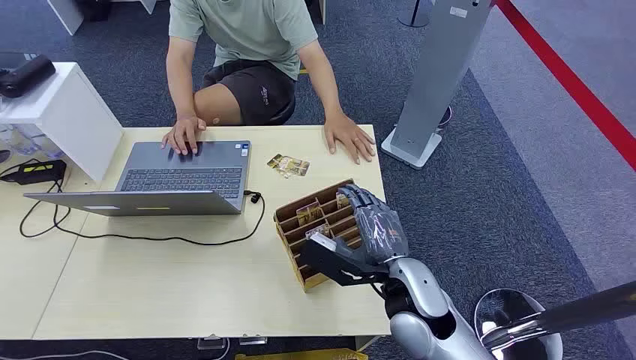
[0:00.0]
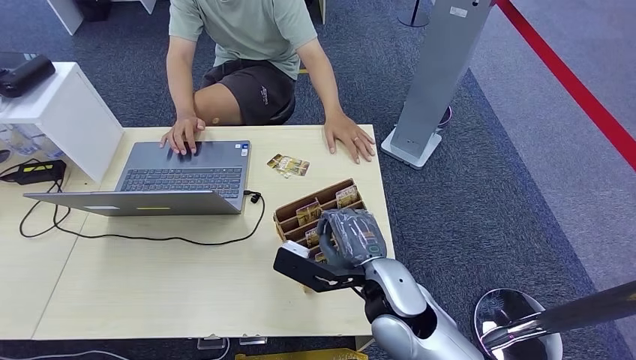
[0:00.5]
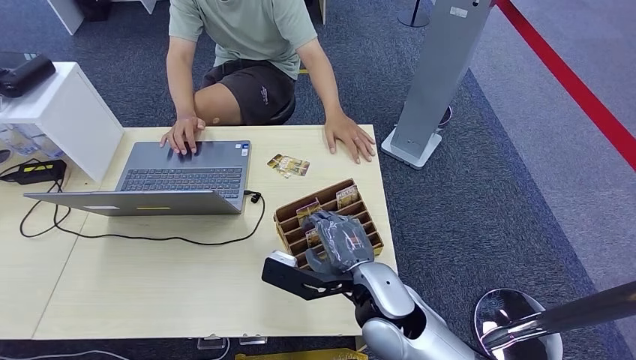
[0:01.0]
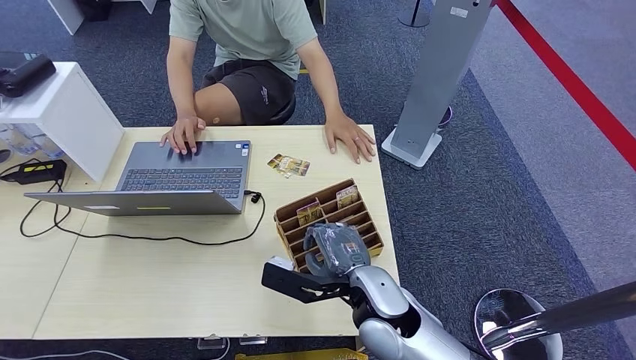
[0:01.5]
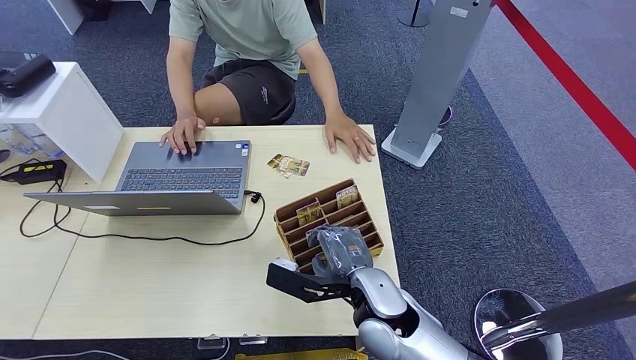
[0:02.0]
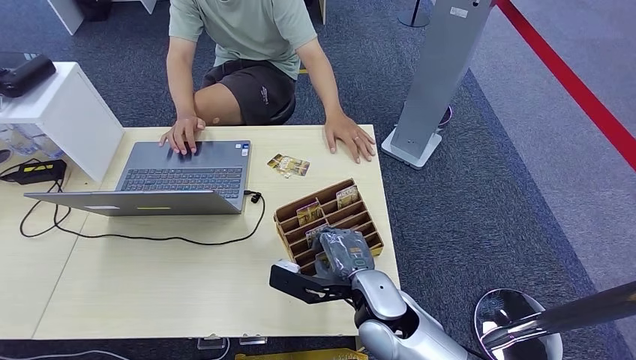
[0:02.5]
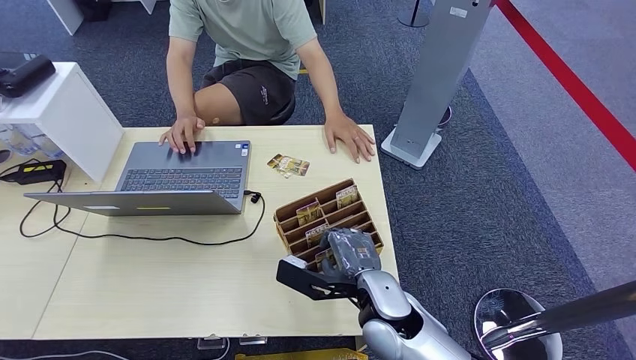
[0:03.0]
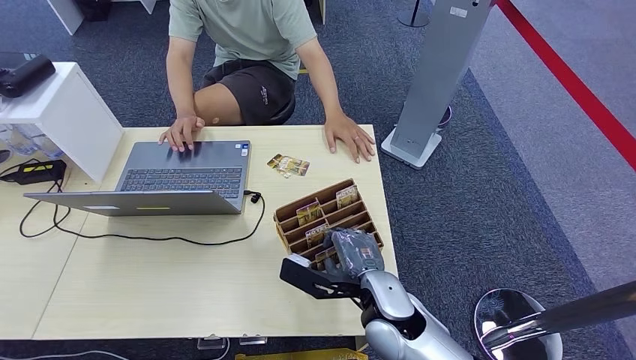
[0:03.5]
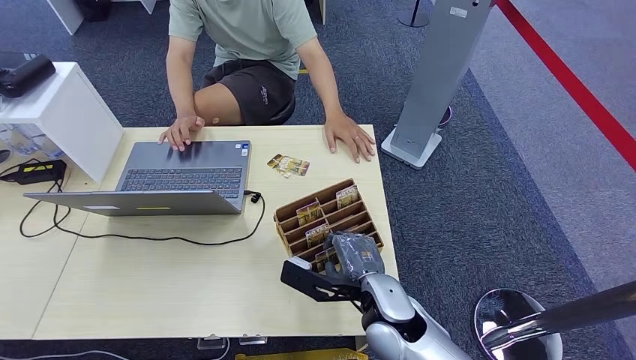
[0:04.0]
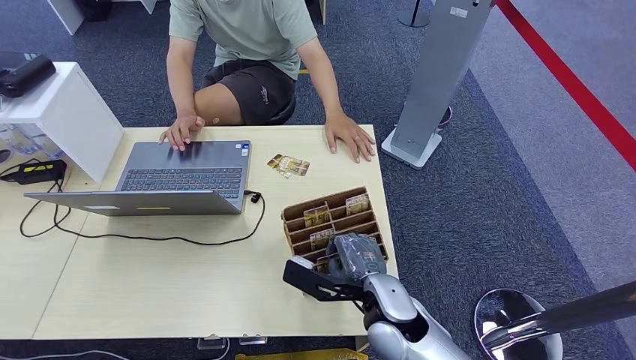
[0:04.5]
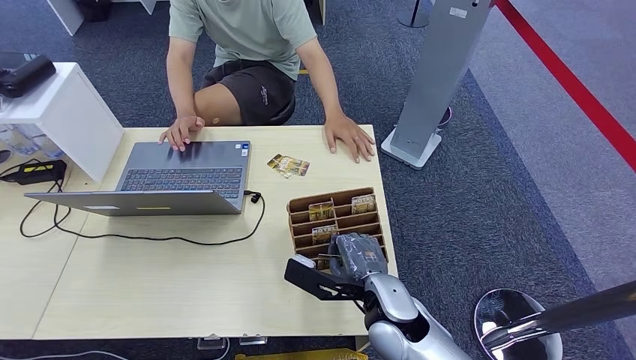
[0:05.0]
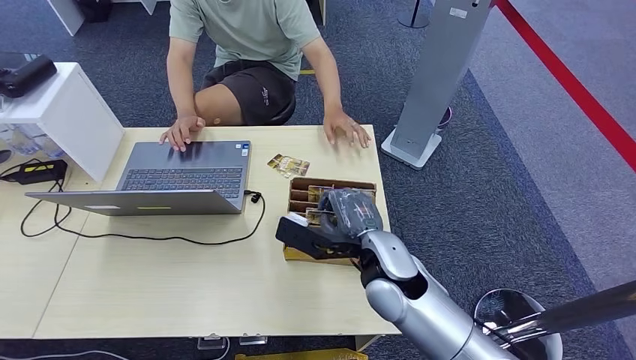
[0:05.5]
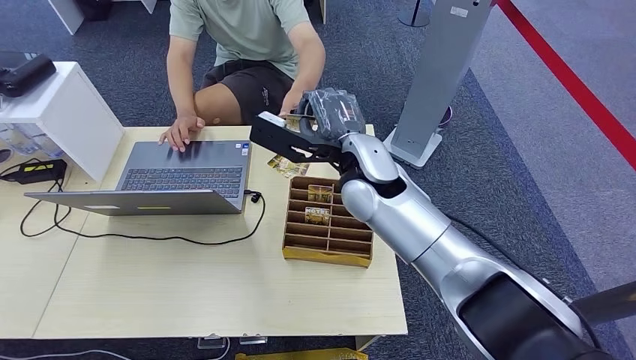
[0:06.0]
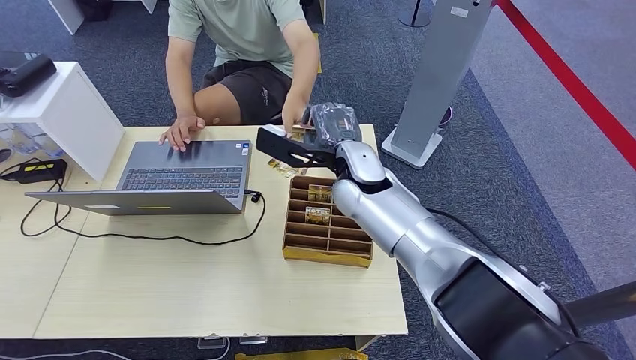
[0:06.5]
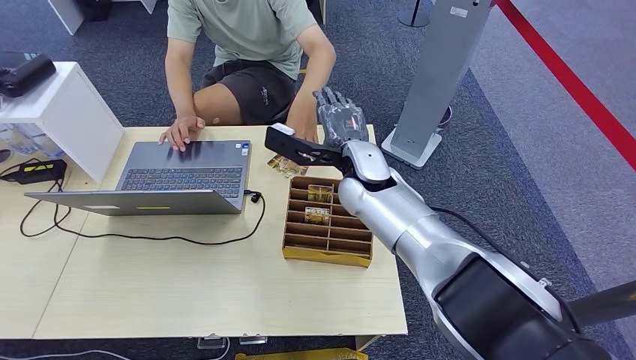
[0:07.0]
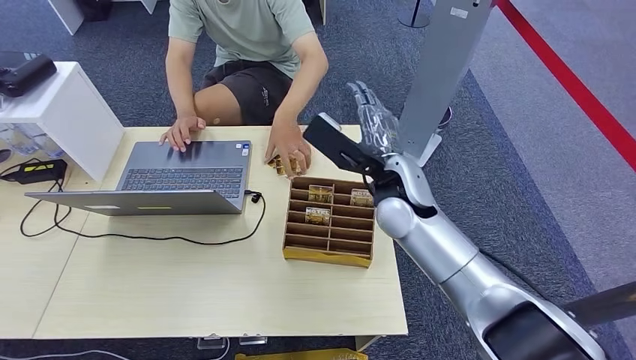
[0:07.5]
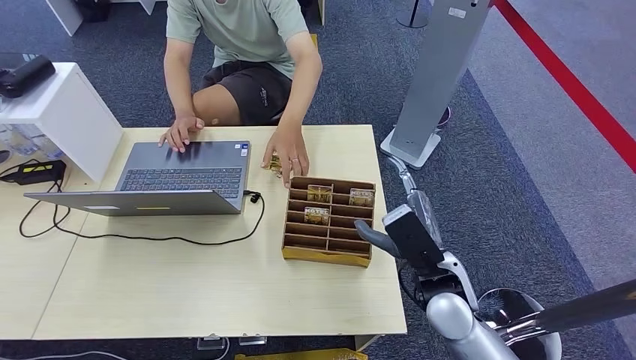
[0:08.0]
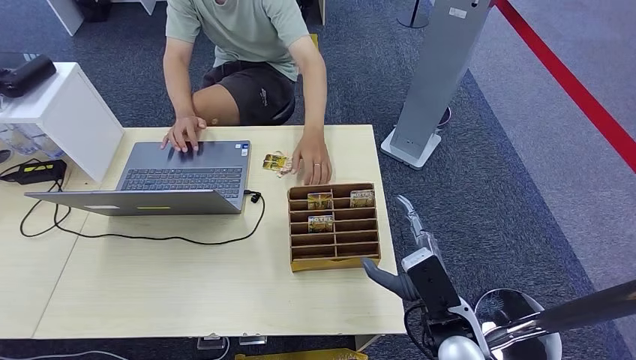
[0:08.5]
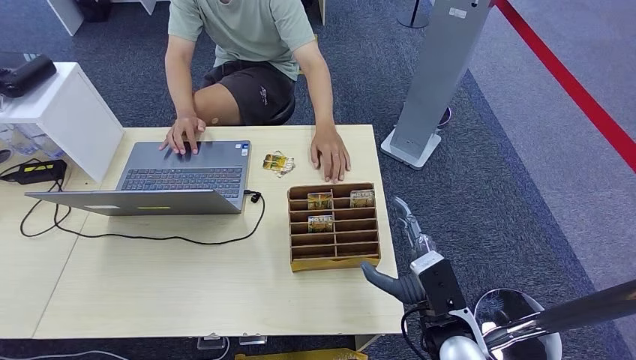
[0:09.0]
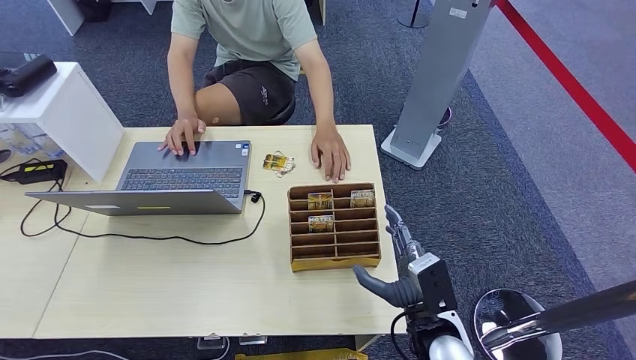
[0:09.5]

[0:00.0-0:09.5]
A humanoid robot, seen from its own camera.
Step, 0:00.0 to 0:05.0: Pick up the key card from the card box.
Step, 0:05.5 to 0:09.5: Hand the key card to the target.
0:02.0 to 0:04.0: There are only small adjustments of the hands.
0:04.0 to 0:05.5: The right hand is displaced upward by approximately 5 cm.
0:05.5 to 0:07.5: The right hand heads forward and upward, covering roughly 10 cm.
0:07.5 to 0:09.5: The right hand goes about 25 cm backward, downward and to the right.

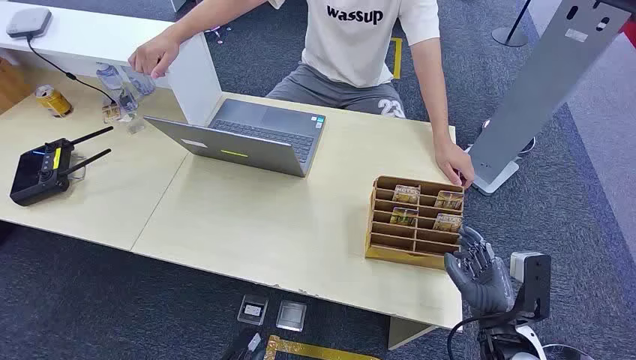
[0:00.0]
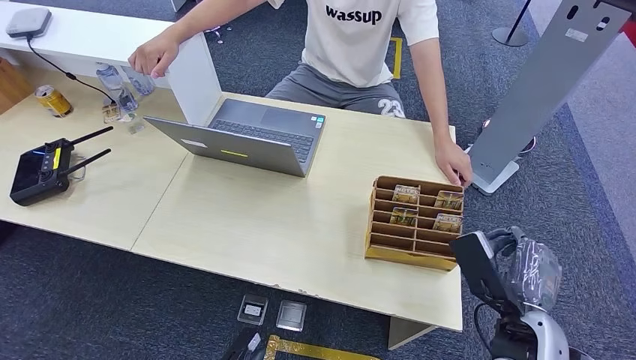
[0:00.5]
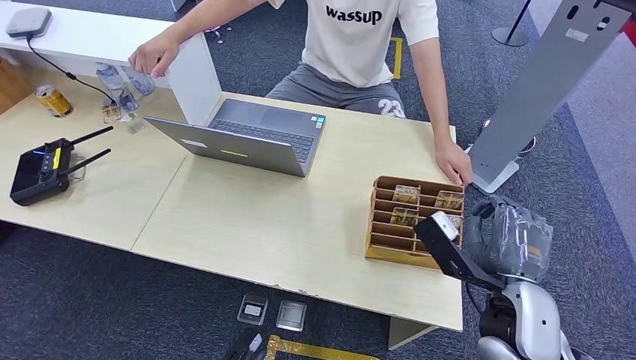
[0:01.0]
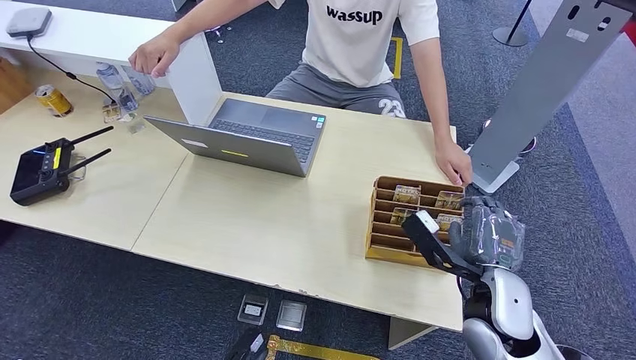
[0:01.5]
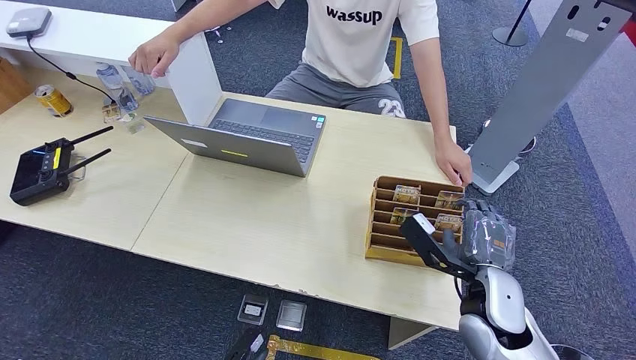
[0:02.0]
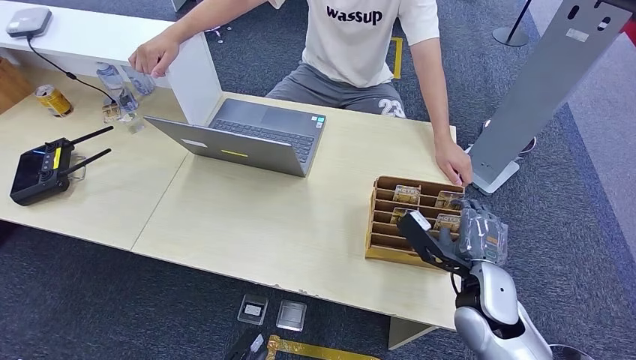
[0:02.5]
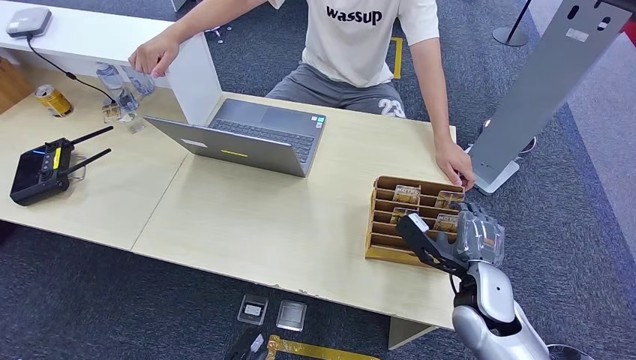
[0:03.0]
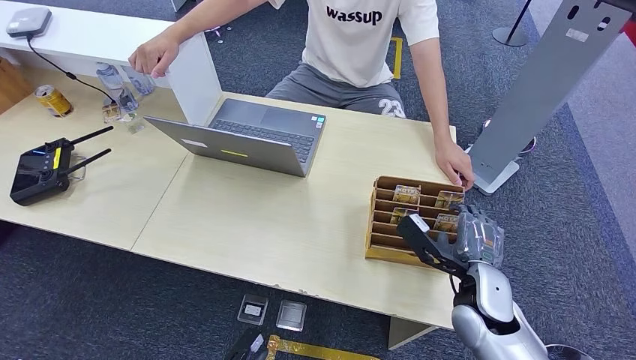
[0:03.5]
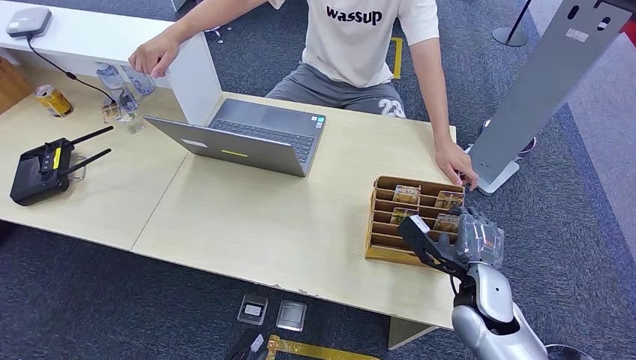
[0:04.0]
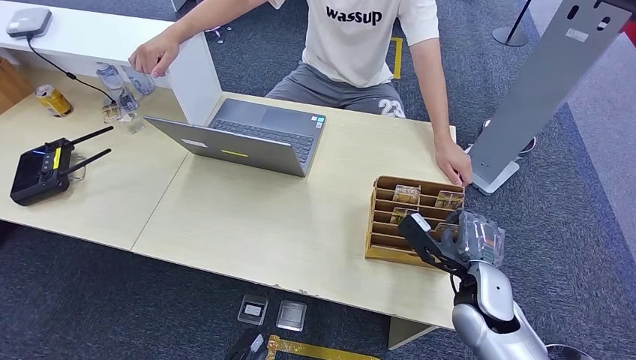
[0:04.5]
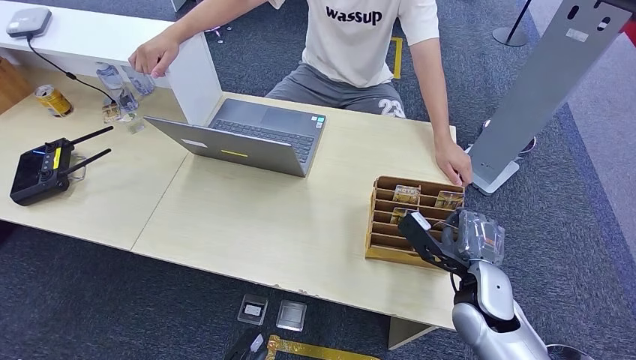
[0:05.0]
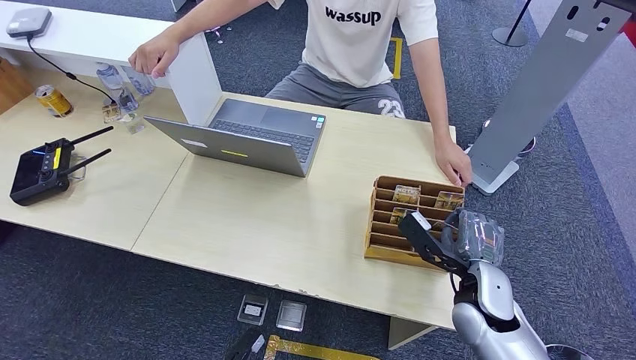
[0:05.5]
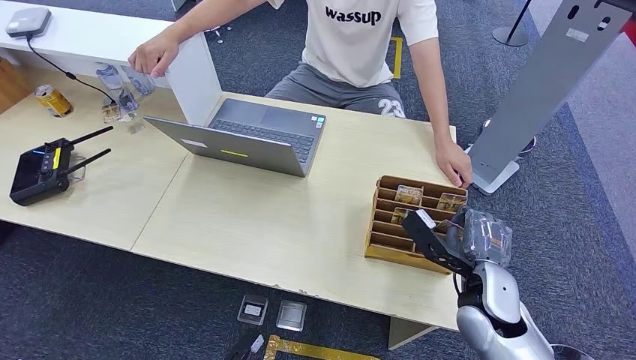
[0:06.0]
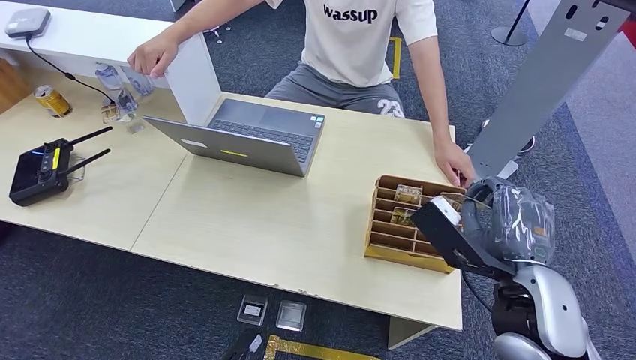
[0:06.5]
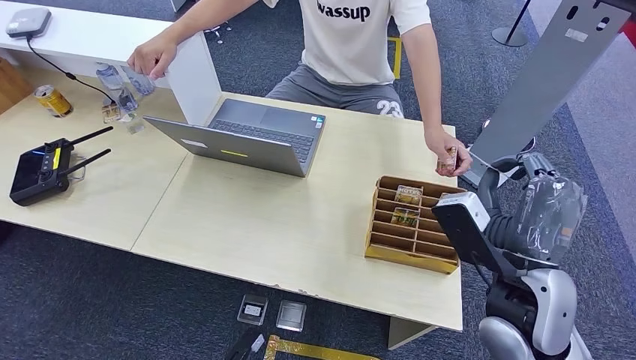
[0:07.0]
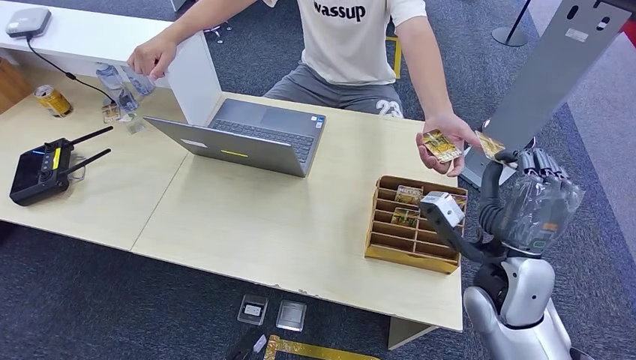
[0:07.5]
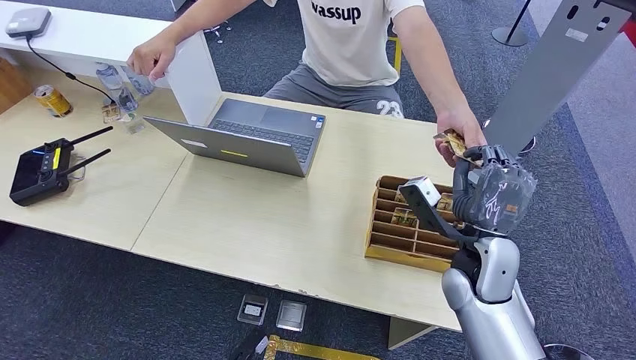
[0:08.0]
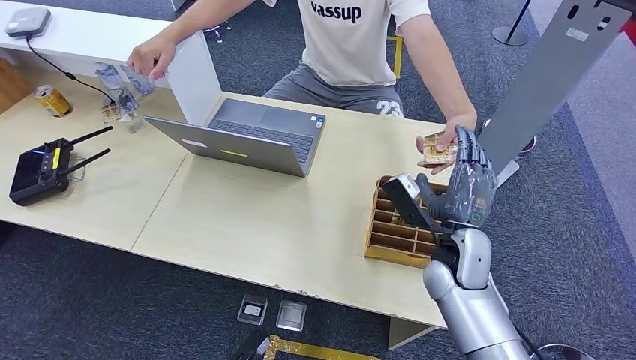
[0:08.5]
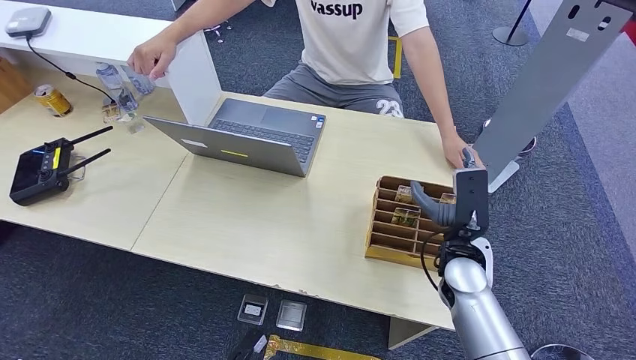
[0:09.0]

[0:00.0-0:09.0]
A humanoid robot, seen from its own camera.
Step, 0:00.0 to 0:07.0: Pick up the key card from the card box.
Step, 0:08.0 to 0:09.0: Hand the key card to the target.
0:02.0 to 0:04.5: There are only small adjustments of the hands.
0:04.5 to 0:07.0: The right hand is displaced upward by about 15 cm.
0:07.0 to 0:09.0: The right hand heads downward, covering about 10 cm.
